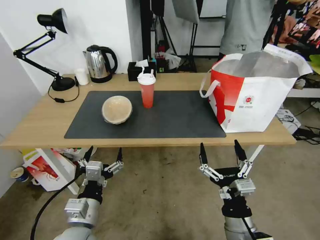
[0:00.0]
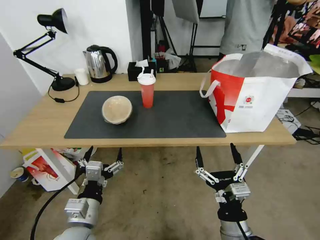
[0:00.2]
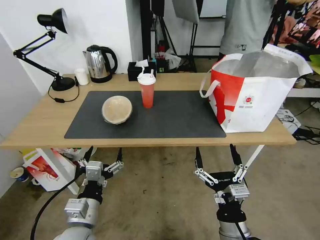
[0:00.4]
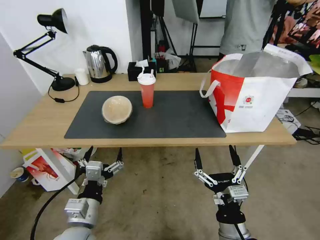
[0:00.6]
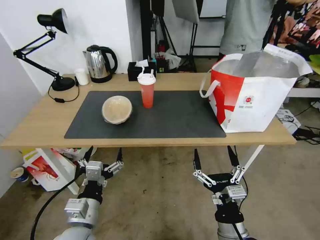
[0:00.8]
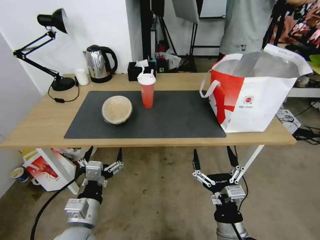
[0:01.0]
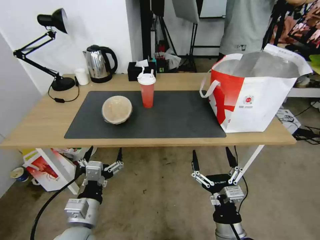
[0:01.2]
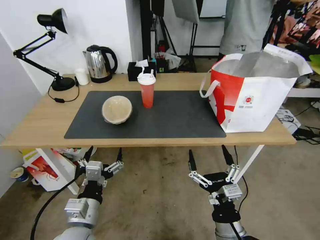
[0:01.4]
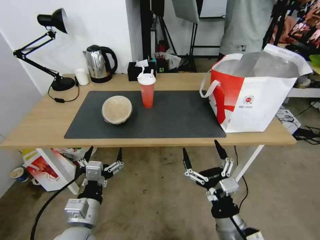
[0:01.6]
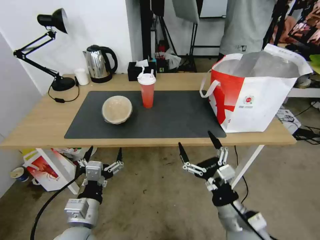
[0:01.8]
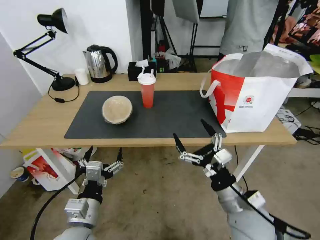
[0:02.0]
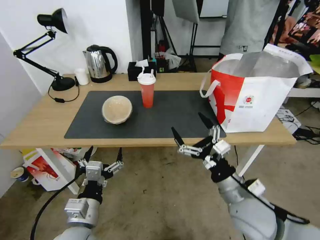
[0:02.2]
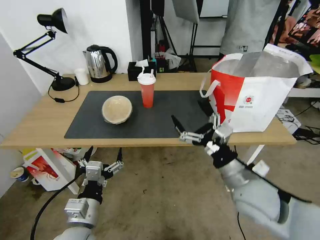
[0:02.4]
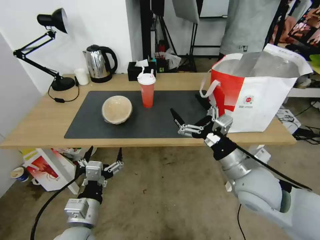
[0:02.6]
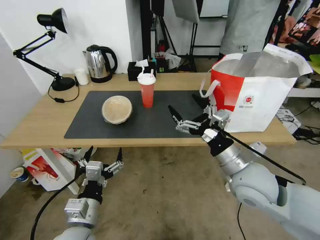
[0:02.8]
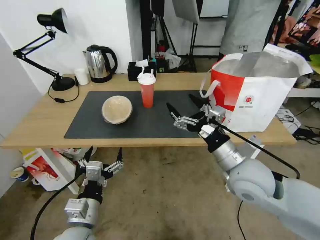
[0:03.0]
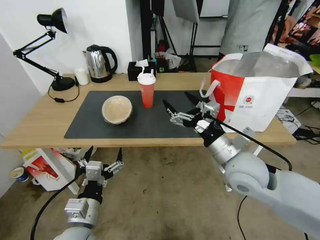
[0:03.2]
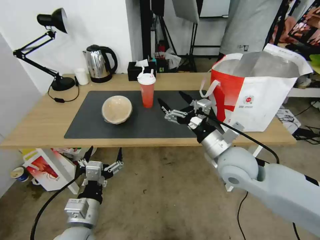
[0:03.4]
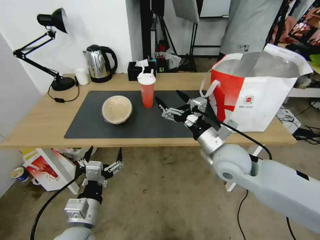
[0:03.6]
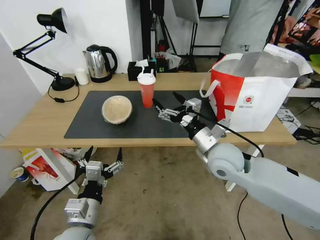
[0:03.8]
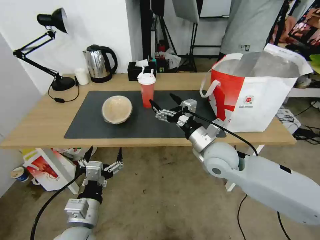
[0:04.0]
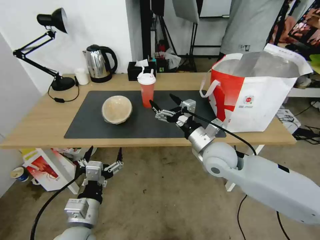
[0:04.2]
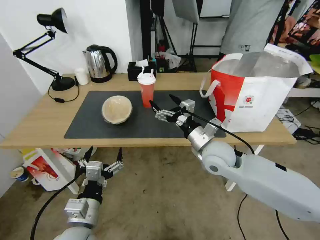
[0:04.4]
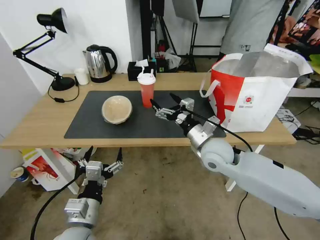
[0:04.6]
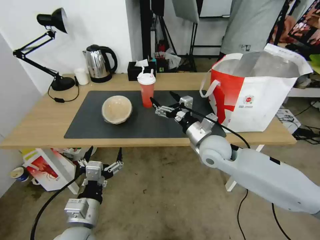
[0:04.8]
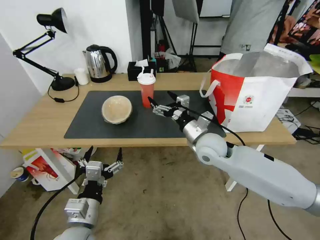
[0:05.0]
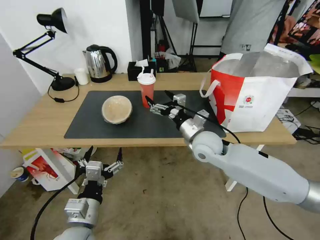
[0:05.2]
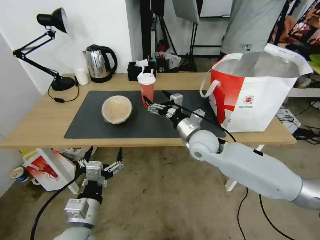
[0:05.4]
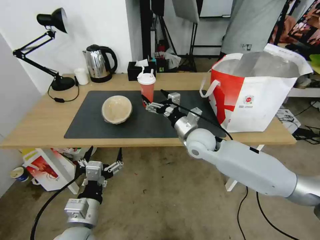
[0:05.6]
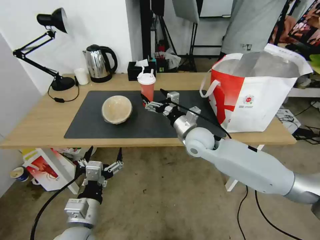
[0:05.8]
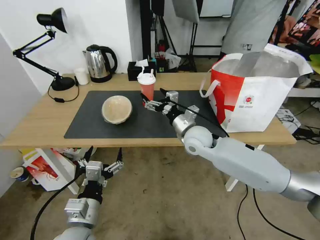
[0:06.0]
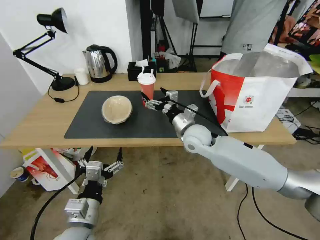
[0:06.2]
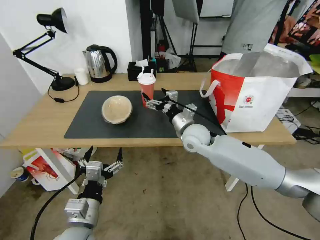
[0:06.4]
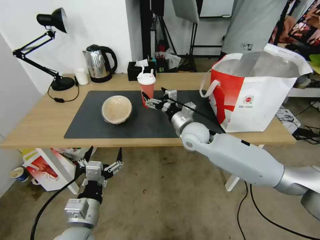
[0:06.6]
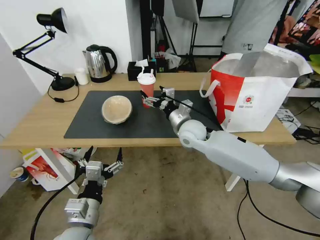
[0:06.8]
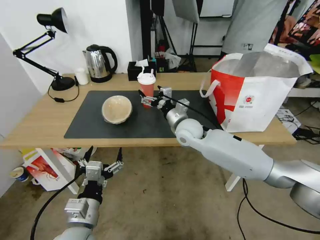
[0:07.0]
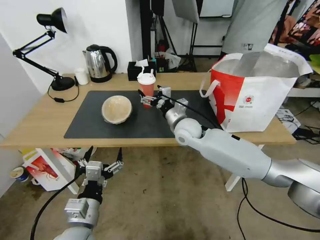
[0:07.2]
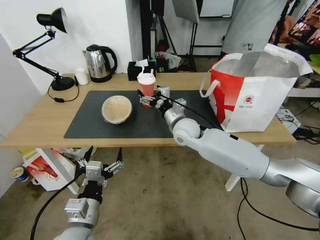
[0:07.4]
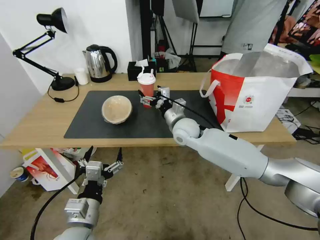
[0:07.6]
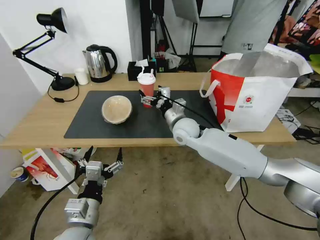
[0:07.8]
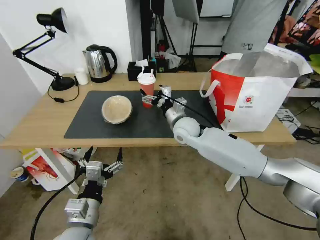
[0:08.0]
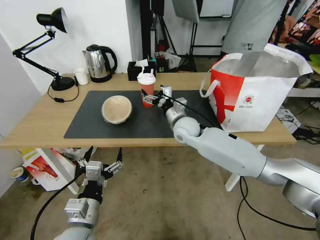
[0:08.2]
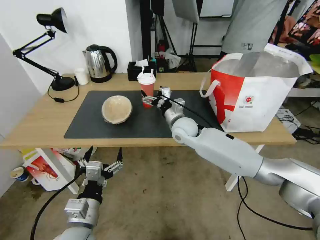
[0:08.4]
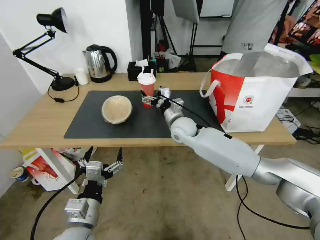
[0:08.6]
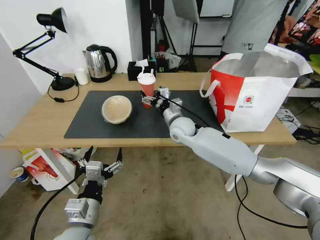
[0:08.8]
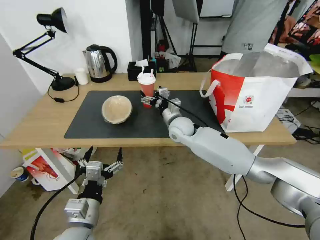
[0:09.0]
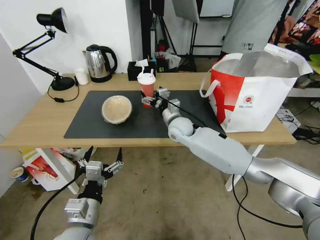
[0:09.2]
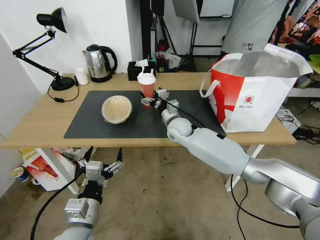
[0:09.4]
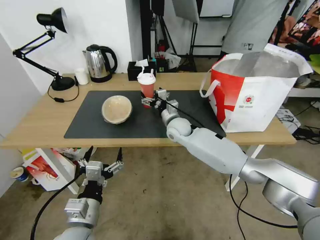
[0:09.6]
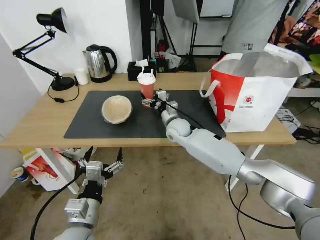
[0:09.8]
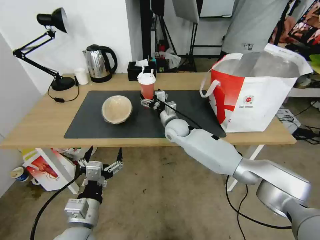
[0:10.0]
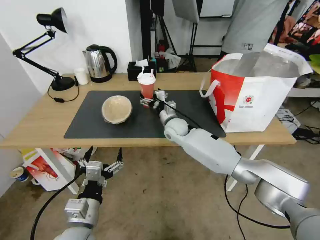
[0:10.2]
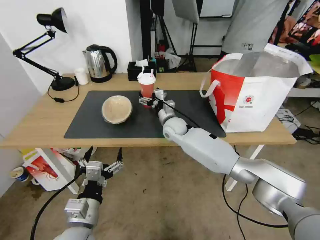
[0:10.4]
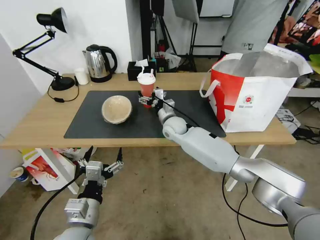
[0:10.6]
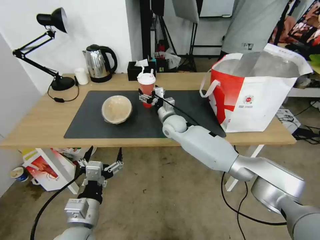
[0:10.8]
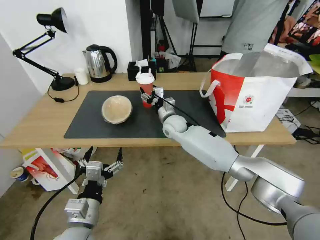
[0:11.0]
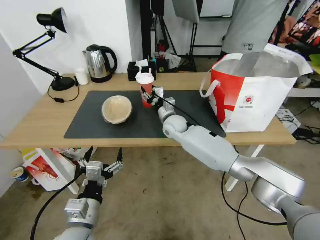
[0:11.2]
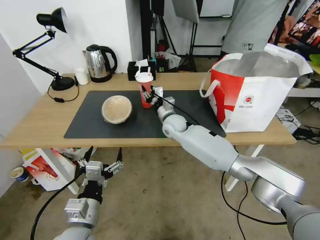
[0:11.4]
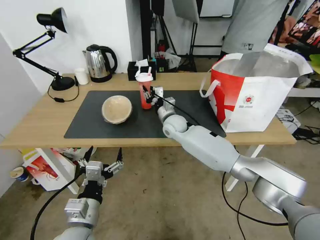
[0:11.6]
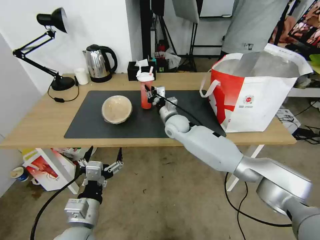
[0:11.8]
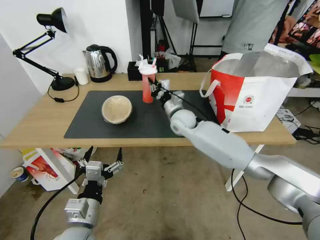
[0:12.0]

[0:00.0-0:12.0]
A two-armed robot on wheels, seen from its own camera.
Task of the whole recording: Pick up the trash from the table and place it into the takeout bag.
0:00.0 to 0:01.6: The grippers stay close to where they were, moving slightly.
0:01.6 to 0:03.0: The right gripper is displaced forward and upward by roughly 20 cm.
0:03.0 to 0:04.4: The right gripper shifts approximately 10 cm forward.
0:04.4 to 0:06.0: The right gripper heads forward, covering some 5 cm.
0:06.0 to 0:07.6: The right gripper moves approximately 5 cm.
0:07.6 to 0:09.0: There are only small adjustments of the grippers.
0:09.0 to 0:10.4: The right gripper moves roughly 5 cm.
0:10.4 to 0:12.0: The right gripper moves about 5 cm, and closes.

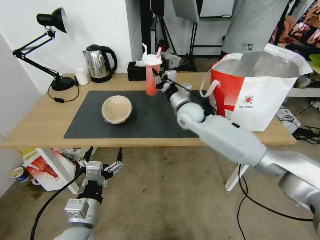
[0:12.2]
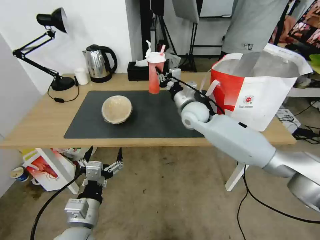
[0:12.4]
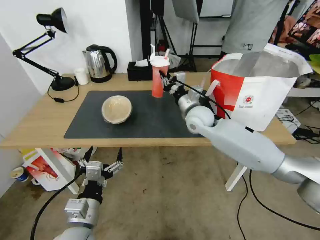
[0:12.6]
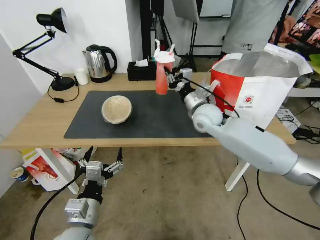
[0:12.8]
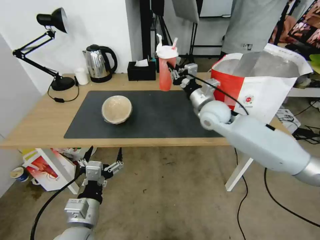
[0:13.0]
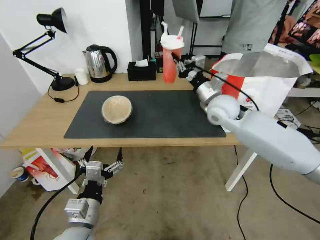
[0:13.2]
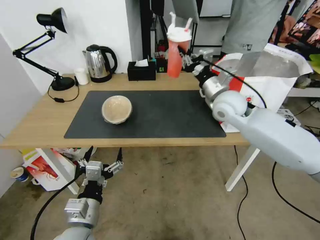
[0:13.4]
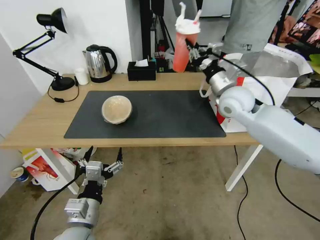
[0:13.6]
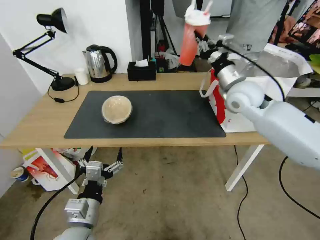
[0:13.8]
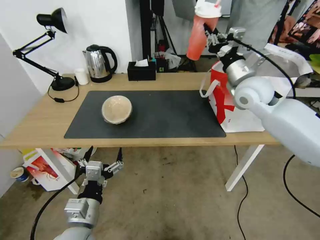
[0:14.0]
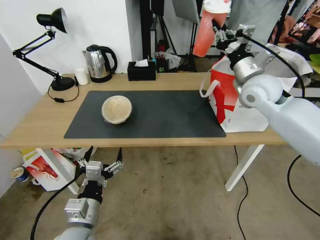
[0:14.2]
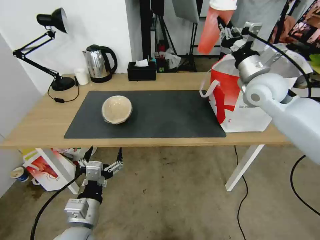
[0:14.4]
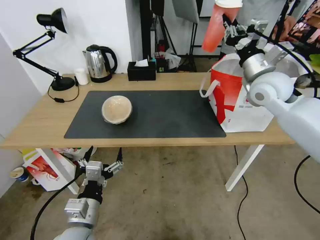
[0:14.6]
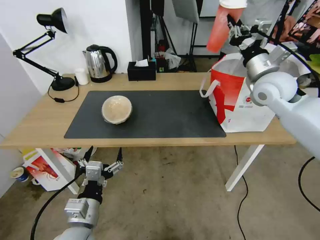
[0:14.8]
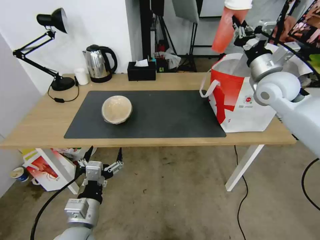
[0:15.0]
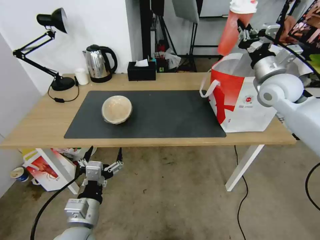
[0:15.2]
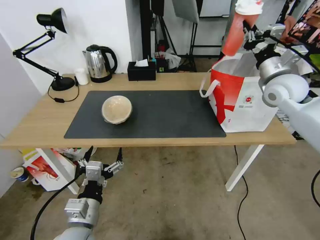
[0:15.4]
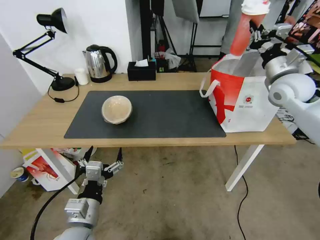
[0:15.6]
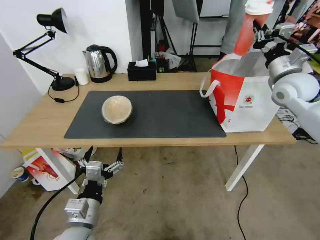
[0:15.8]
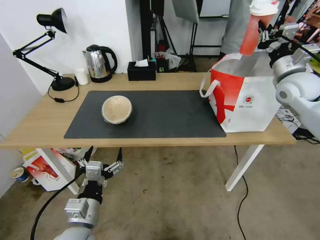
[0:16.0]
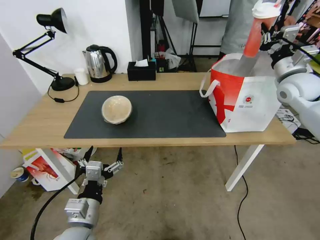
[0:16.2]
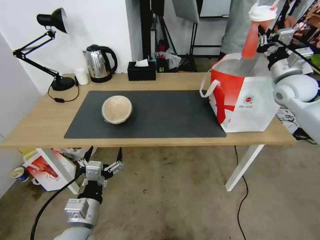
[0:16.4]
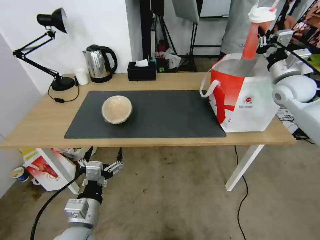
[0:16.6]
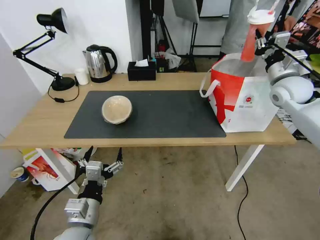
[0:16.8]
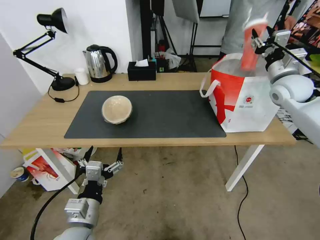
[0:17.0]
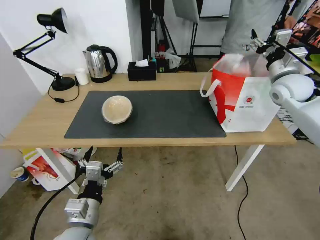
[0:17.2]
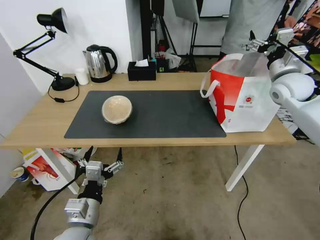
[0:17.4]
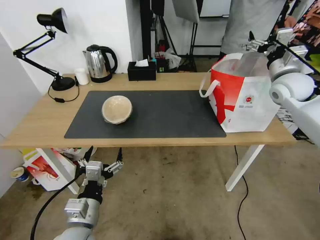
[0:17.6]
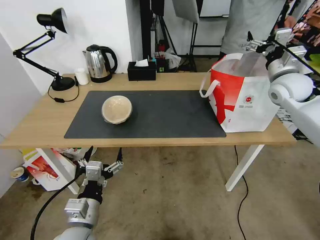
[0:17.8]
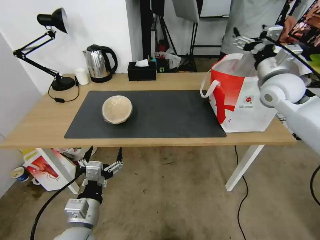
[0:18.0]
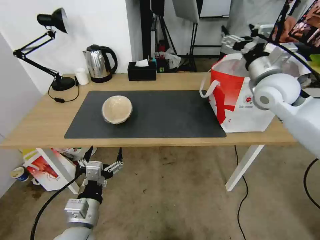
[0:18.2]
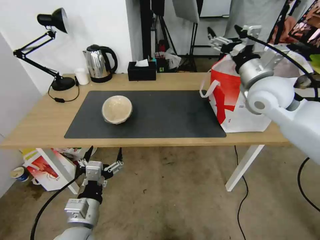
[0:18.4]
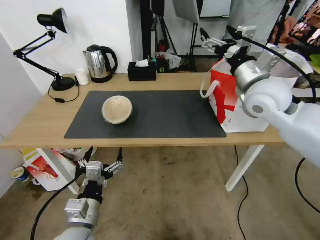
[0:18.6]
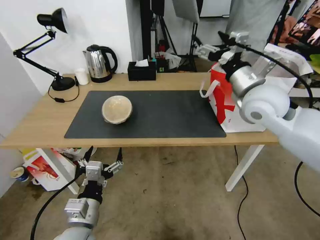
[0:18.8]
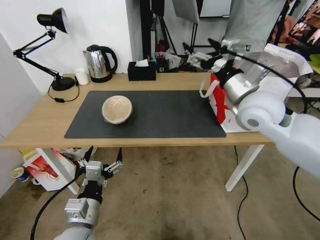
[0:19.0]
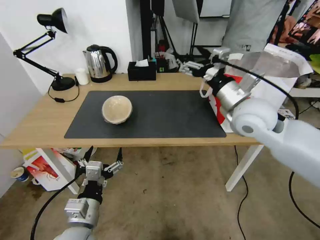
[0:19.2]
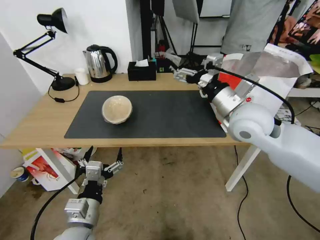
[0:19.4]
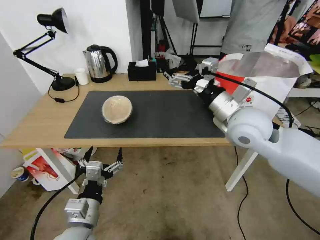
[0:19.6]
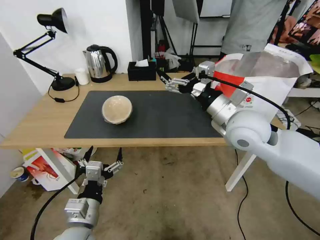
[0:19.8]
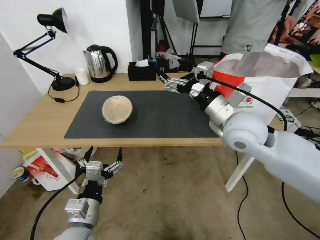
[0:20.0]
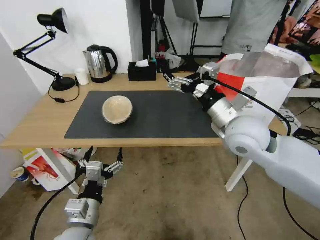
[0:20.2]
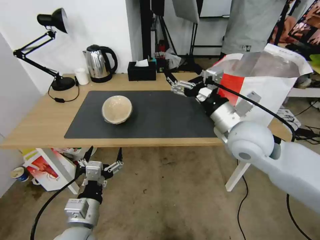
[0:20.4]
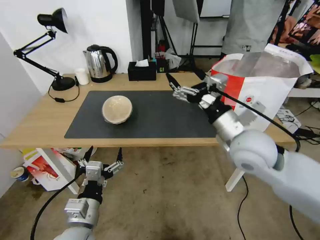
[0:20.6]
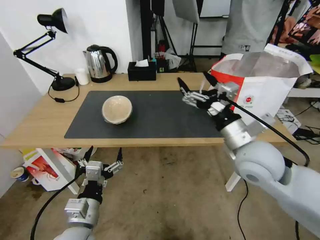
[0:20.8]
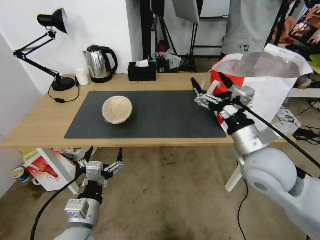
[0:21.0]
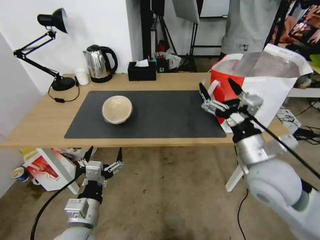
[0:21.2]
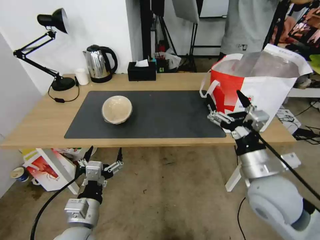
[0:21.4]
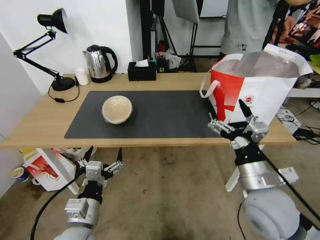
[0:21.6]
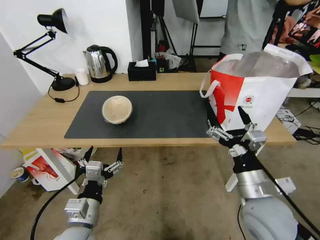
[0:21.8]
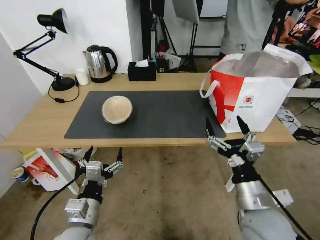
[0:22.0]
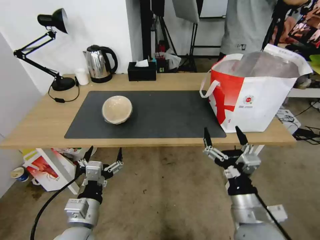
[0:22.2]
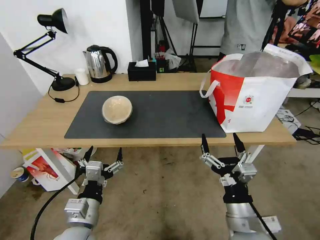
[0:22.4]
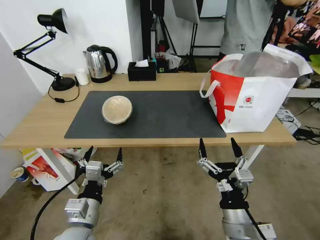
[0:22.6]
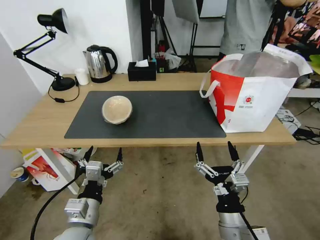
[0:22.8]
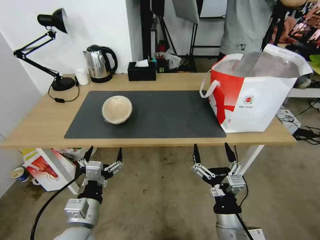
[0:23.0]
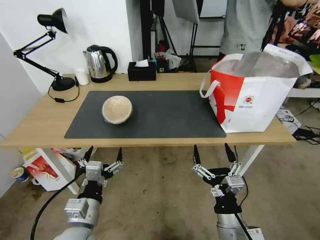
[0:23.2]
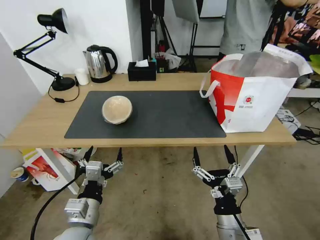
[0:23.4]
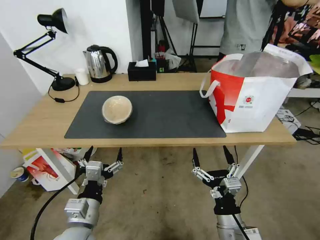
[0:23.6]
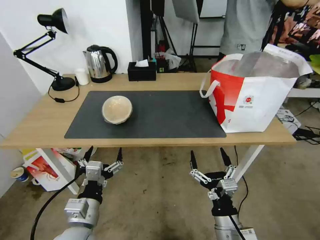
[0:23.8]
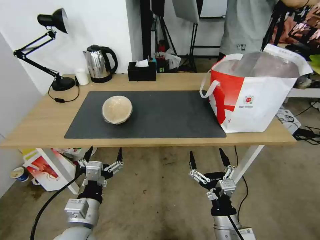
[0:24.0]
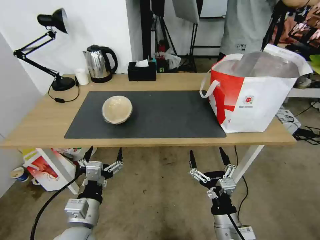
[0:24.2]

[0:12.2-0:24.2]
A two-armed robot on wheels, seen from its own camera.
Task of the whole recording: Pick up the trash from the table and place it into the takeout bag.
0:12.2 to 0:13.8: The right gripper shifts about 20 cm to the right and upward.
0:13.8 to 0:15.2: The right gripper shifts approximately 10 cm to the right.
0:15.2 to 0:16.6: The right gripper goes about 5 cm to the right.
0:16.6 to 0:18.2: The right gripper is displaced to the left by some 10 cm, and opens.
0:18.2 to 0:19.8: The right gripper is displaced to the left and backward by some 15 cm.
0:19.8 to 0:21.2: The right gripper travels backward and downward by approximately 10 cm.
0:21.2 to 0:22.6: The right gripper heads downward, backward and to the left, covering some 20 cm.
0:22.6 to 0:24.2: The right gripper travels downward by roughly 5 cm.
